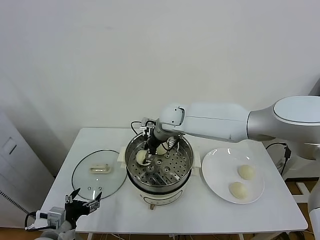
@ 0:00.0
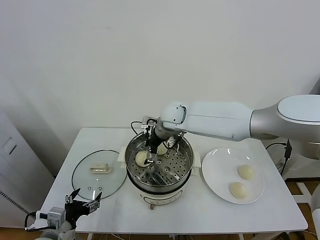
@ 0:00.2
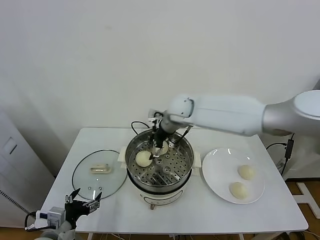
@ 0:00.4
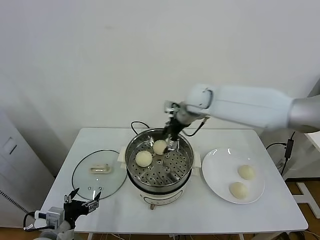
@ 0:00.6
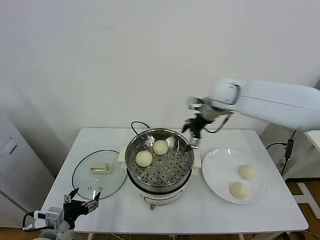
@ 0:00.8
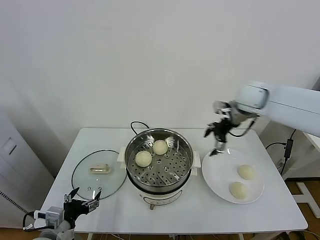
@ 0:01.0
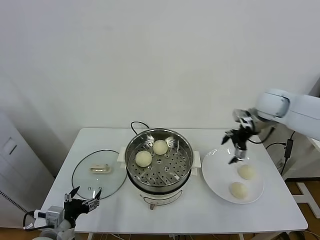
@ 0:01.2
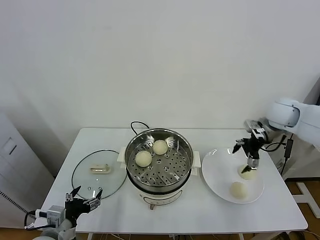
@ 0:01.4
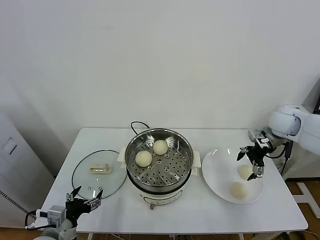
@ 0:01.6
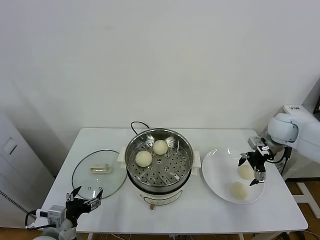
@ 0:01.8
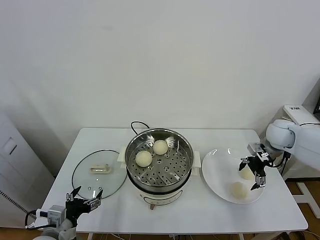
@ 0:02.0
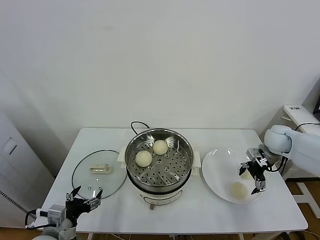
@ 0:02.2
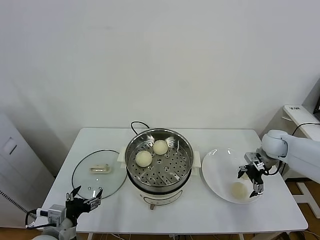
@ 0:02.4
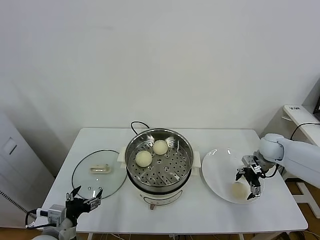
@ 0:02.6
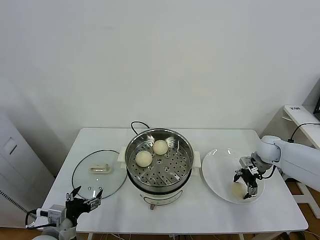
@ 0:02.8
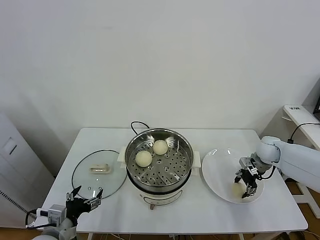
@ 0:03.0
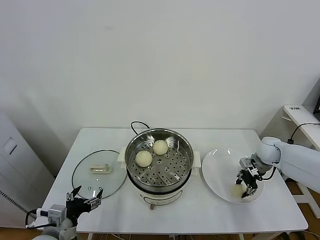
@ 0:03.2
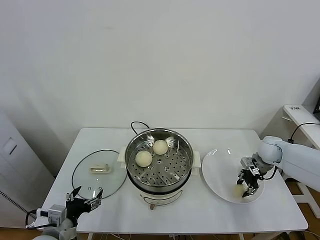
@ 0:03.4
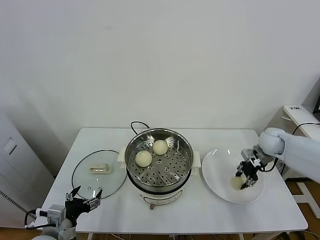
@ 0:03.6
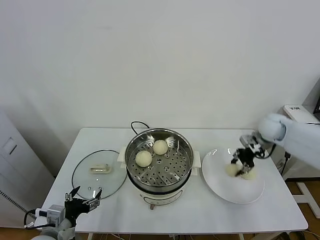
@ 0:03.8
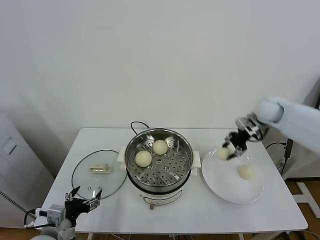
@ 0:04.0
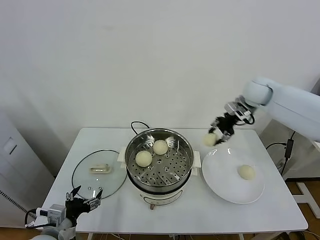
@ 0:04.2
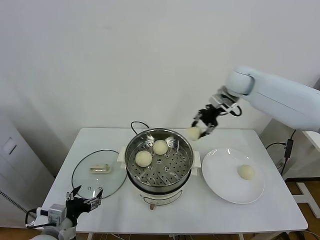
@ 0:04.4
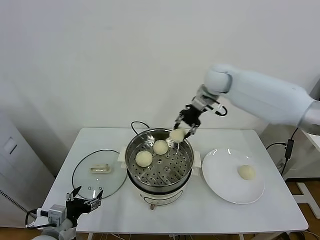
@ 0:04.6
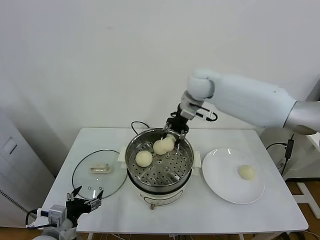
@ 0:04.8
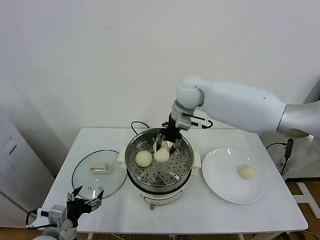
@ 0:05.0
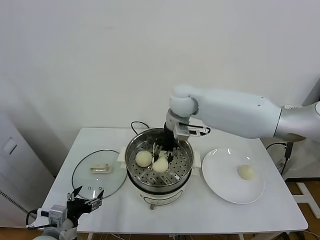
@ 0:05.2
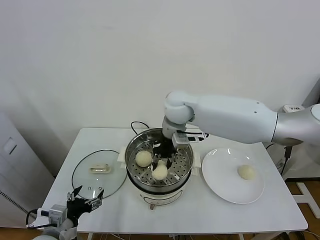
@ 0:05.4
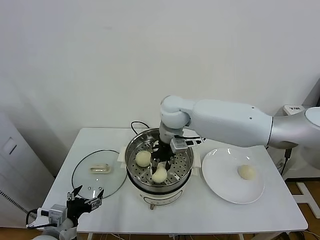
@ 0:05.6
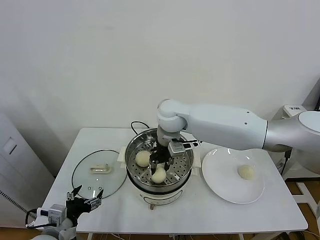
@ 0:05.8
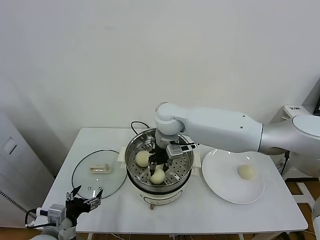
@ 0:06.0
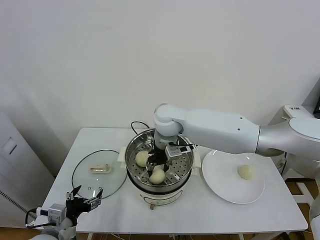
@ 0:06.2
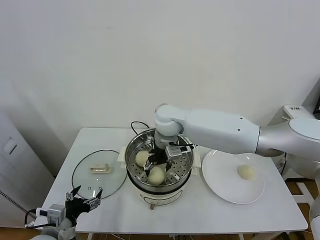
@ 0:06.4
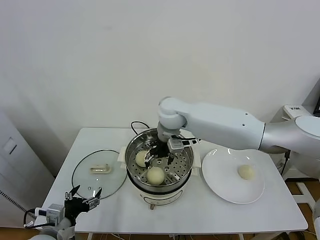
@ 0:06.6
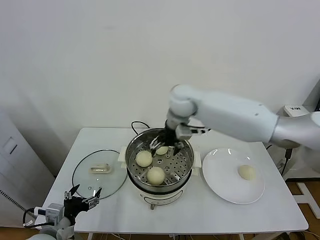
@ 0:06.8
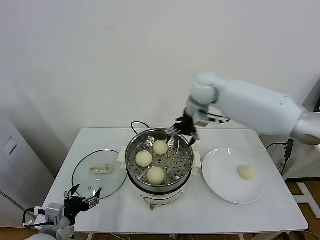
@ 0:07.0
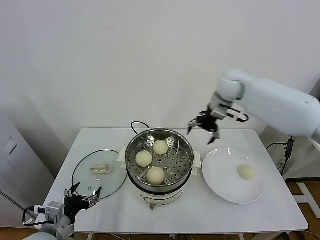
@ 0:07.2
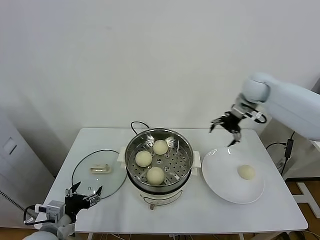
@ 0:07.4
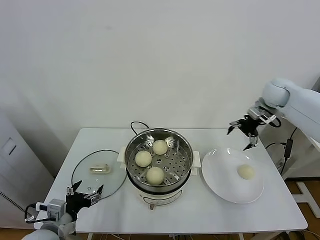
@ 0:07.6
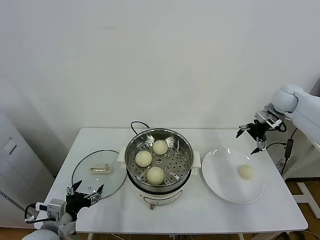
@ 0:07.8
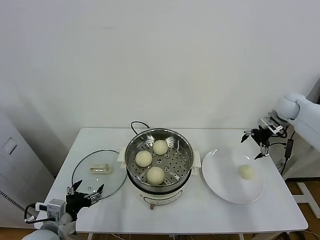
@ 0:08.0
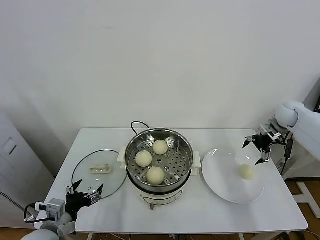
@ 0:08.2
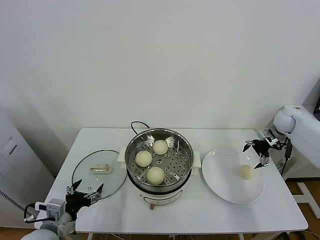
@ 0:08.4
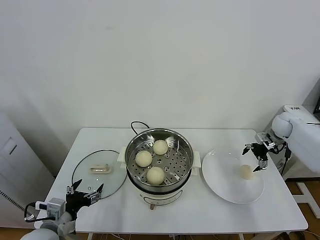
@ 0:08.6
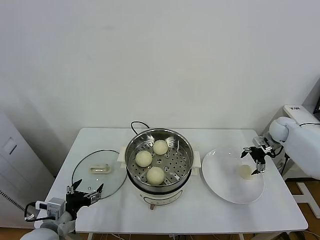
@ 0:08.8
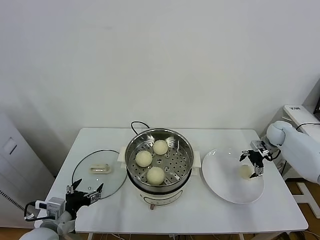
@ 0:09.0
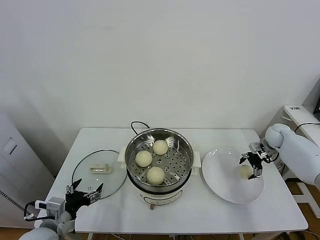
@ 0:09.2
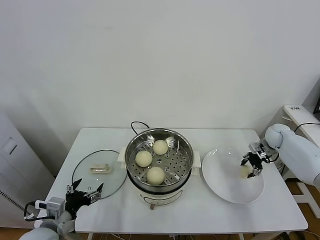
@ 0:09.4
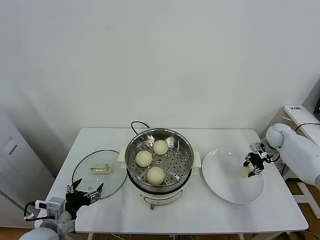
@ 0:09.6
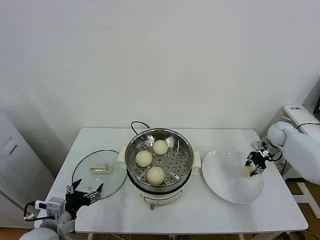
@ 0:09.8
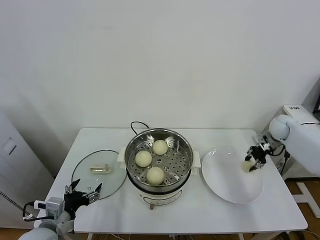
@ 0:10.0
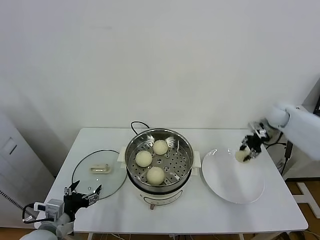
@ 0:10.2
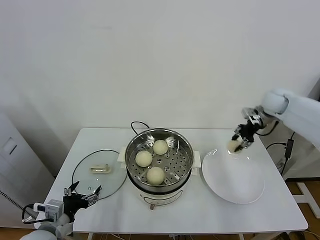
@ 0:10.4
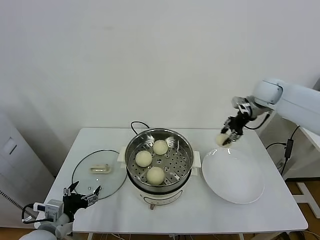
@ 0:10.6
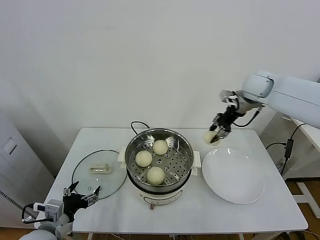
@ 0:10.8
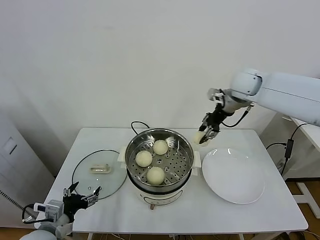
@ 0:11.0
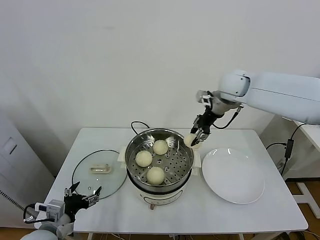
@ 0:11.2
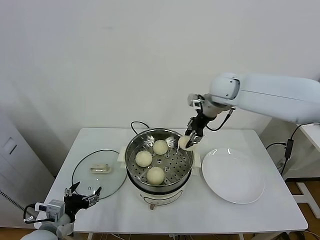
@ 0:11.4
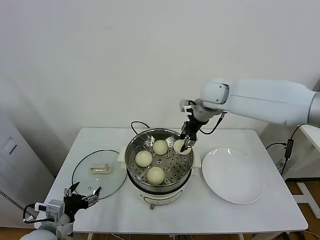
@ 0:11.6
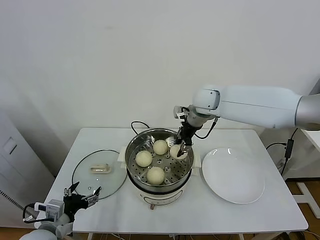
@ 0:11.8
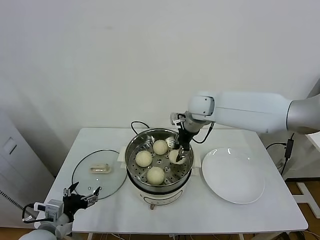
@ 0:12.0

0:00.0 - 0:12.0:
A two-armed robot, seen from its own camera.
Task of the whole recording: take steamed baozi put them in steamer.
Step, 0:00.4 - 0:03.0: Grasp the baozi in the plate with right gripper.
Step, 0:03.2 - 0:06.6: Place the baozi on the steamer with right gripper.
Step, 0:06.8 - 0:09.4: Grasp the baozi in the plate with right gripper.
0:00.0 - 0:01.6: The right gripper is displaced to the right by about 35 cm, and opens up.
0:01.6 - 0:03.0: The right gripper travels downward by roughly 15 cm, and closes.
0:03.0 - 0:04.4: The right gripper is displaced upward and to the left by roughly 30 cm.
0:04.4 - 0:06.0: The right gripper goes some 25 cm to the left and backward.
0:06.0 - 0:07.6: The right gripper shifts approximately 40 cm to the right, and opens.
0:07.6 - 0:09.0: The right gripper moves downward and to the right, some 20 cm.
0:09.0 - 0:10.4: The right gripper goes approximately 15 cm upward and to the left, and closes up.
0:10.4 - 0:12.0: The right gripper heads to the left, covering roughly 25 cm.

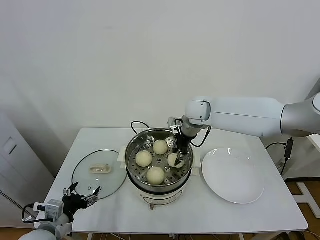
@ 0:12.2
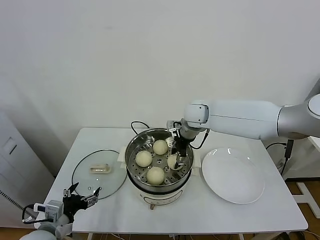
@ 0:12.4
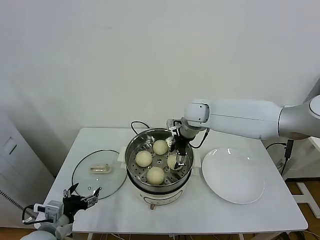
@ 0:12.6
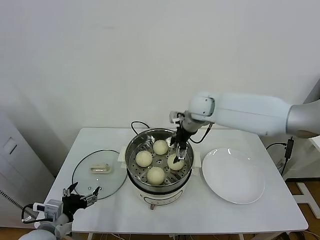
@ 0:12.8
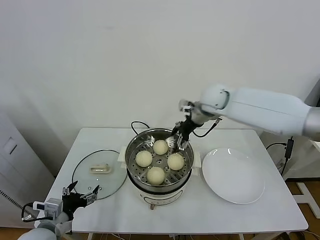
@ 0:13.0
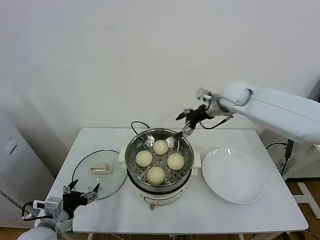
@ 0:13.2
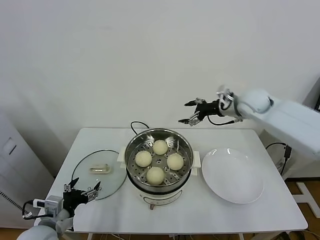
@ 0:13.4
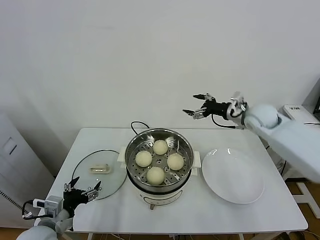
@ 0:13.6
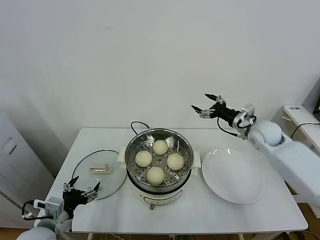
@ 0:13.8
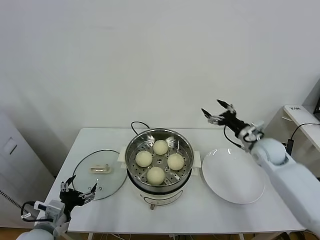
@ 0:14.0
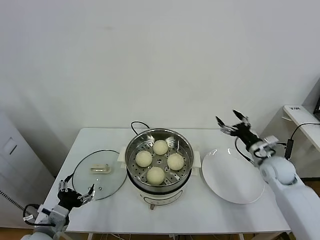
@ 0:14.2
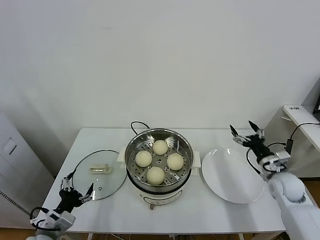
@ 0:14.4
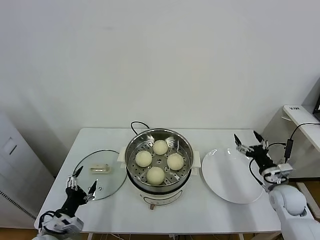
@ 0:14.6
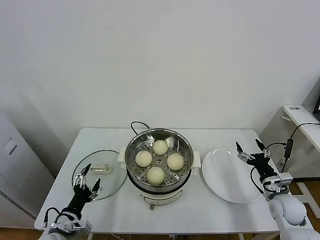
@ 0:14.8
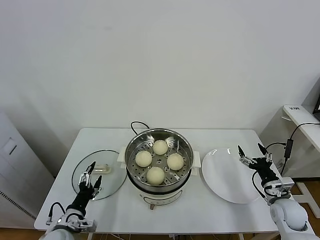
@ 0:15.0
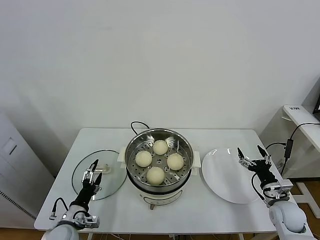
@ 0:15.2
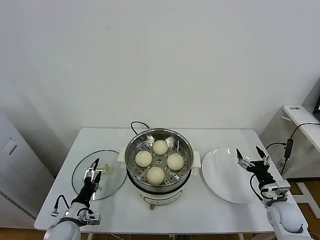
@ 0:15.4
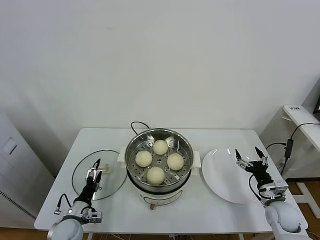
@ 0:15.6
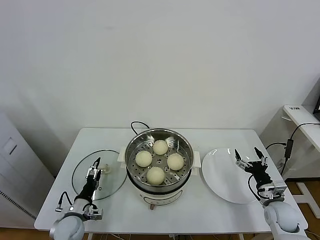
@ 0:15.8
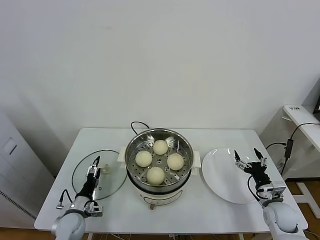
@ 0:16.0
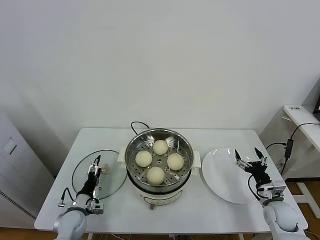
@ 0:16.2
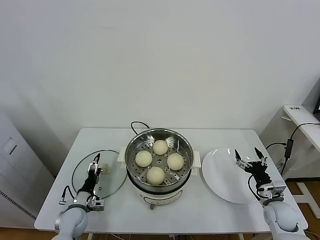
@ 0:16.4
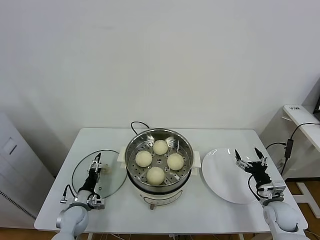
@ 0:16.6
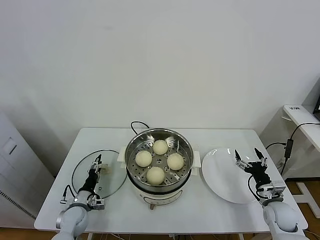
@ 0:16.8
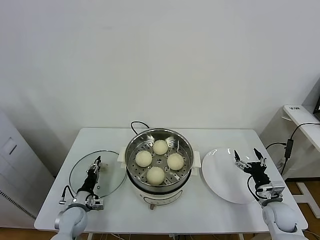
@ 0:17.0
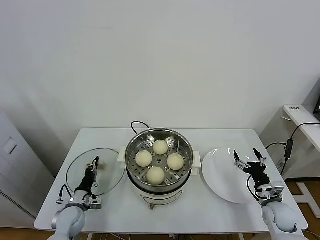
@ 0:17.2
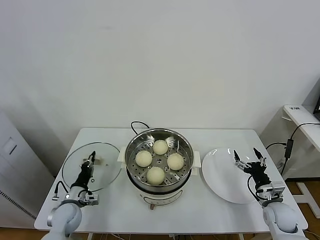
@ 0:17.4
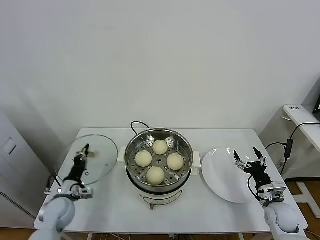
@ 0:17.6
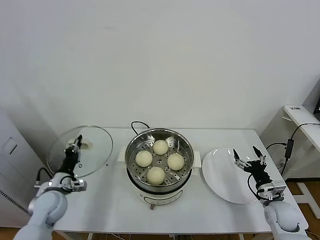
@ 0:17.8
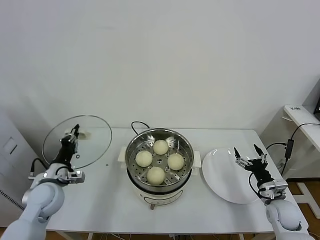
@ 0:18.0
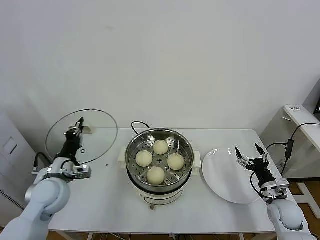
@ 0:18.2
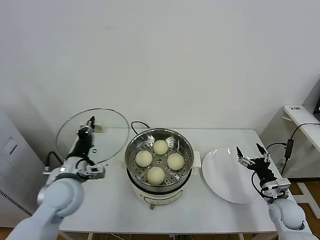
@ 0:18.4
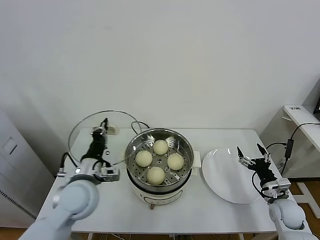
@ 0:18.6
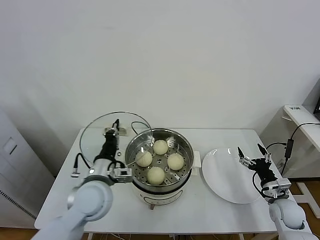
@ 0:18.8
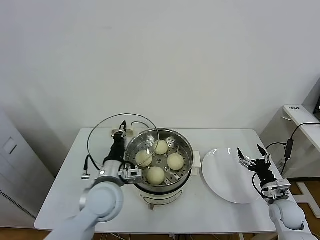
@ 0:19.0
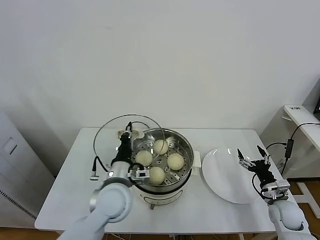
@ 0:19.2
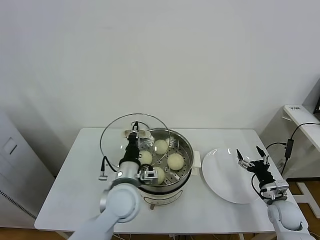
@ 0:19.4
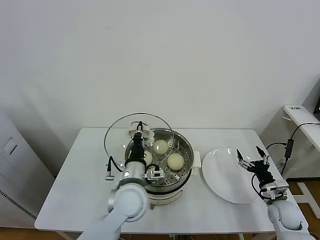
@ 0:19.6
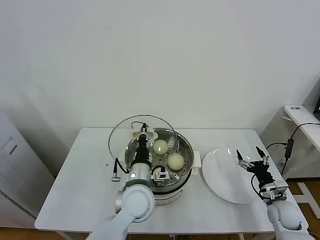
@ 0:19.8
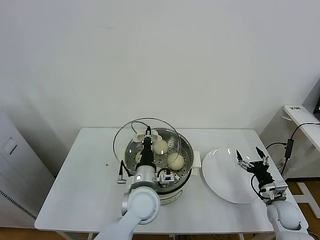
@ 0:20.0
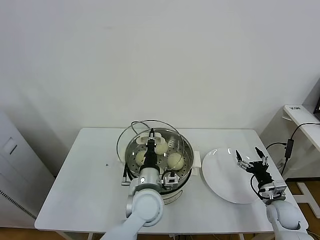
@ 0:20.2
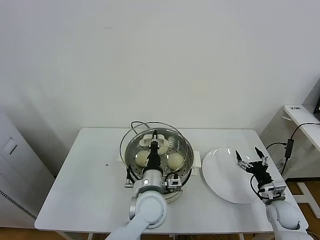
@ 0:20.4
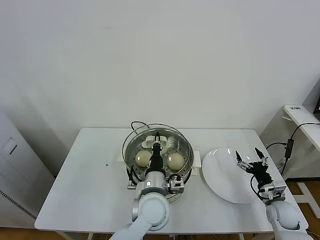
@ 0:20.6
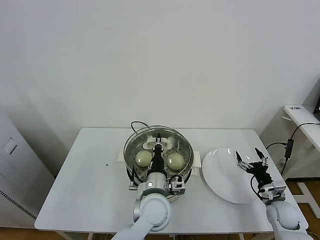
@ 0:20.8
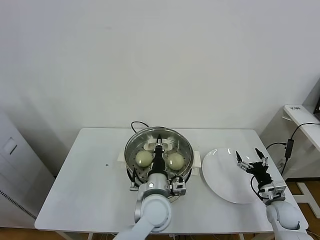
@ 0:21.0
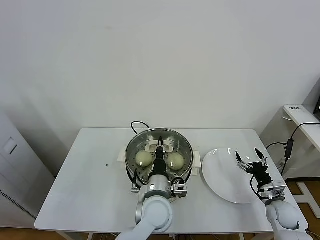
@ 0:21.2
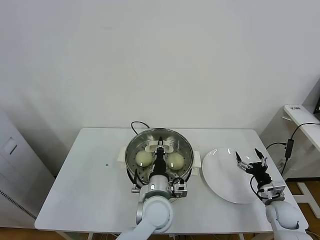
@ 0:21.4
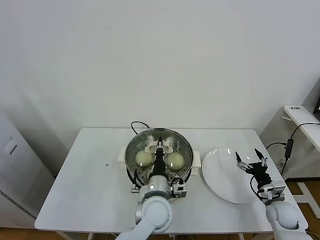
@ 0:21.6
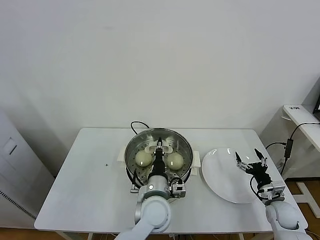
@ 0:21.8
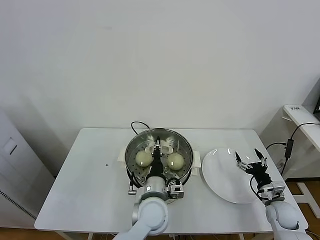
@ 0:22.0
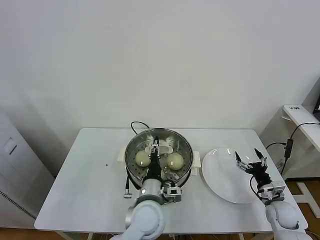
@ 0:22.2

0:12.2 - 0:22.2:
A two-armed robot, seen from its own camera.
Task of the whole recording: take steamed baozi put them in steamer.
Step, 0:13.0 - 0:17.4: Grasp the pot lid with left gripper.
0:12.2 - 0:13.6: The right gripper travels to the right by about 20 cm, and opens up.
0:13.6 - 0:15.0: The right gripper heads downward and backward, covering roughly 30 cm, while the left gripper shifts roughly 10 cm downward.
0:15.0 - 0:16.4: The left gripper is displaced forward and downward by some 10 cm.
0:16.4 - 0:18.0: The left gripper heads upward, covering about 15 cm, and closes.
0:18.0 - 0:19.4: The left gripper shifts some 25 cm to the right.
0:19.4 - 0:20.8: The left gripper is displaced to the right by some 10 cm.
0:20.8 - 0:22.2: The left gripper opens up.
